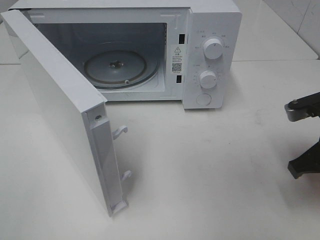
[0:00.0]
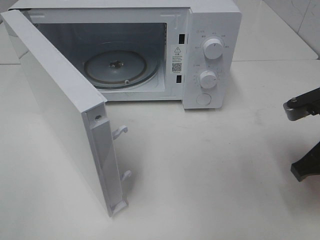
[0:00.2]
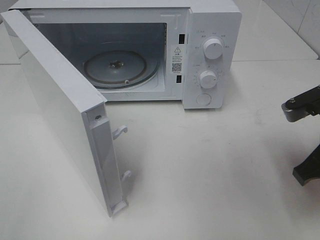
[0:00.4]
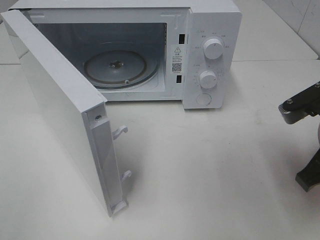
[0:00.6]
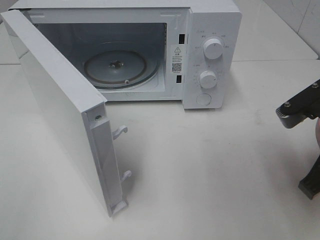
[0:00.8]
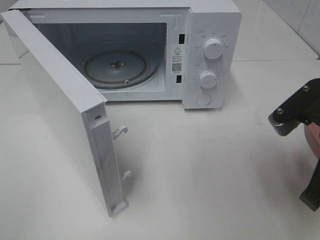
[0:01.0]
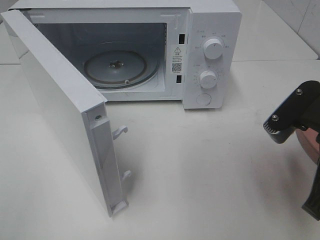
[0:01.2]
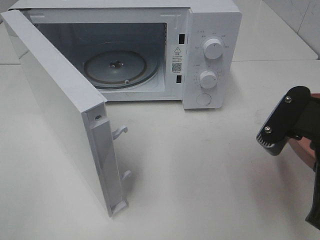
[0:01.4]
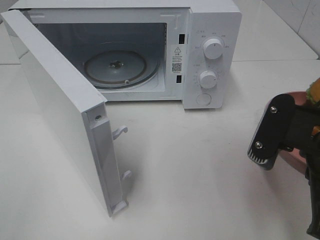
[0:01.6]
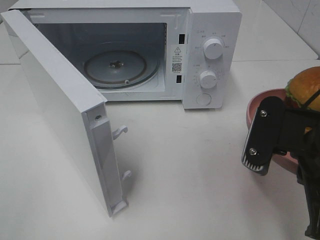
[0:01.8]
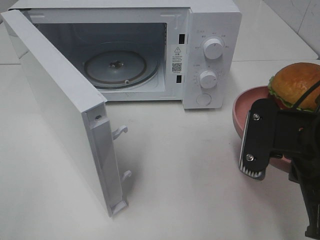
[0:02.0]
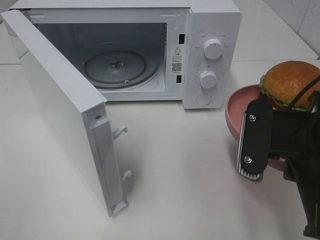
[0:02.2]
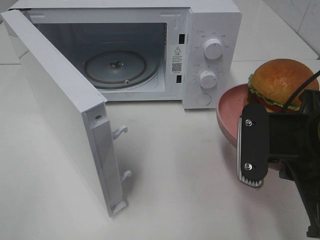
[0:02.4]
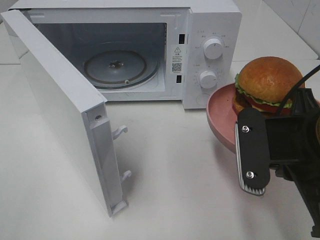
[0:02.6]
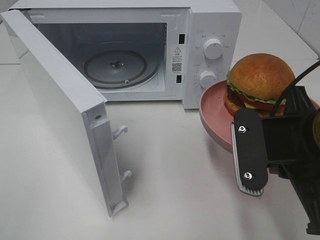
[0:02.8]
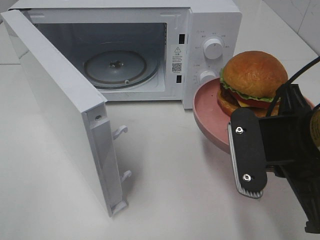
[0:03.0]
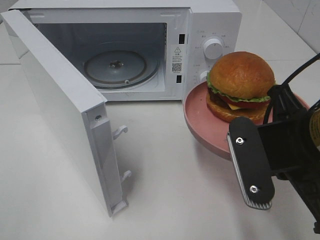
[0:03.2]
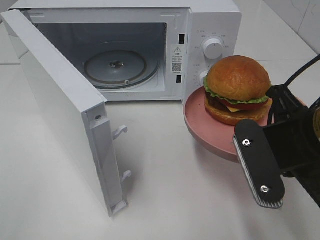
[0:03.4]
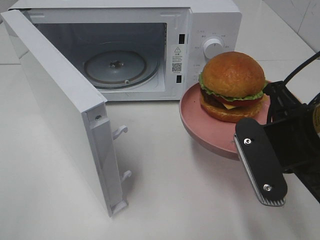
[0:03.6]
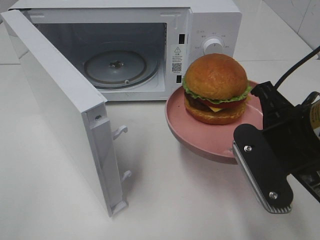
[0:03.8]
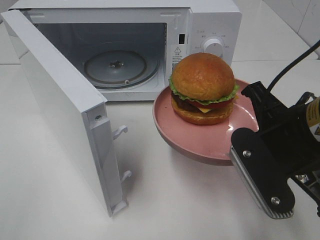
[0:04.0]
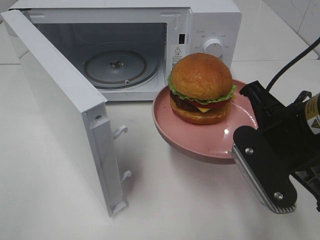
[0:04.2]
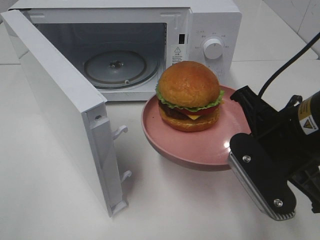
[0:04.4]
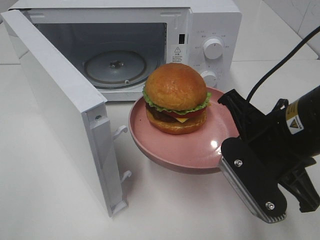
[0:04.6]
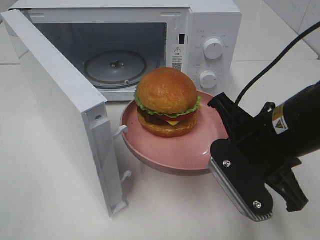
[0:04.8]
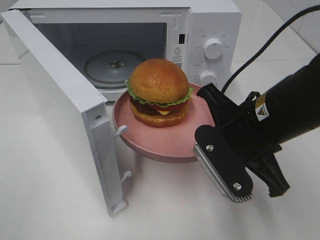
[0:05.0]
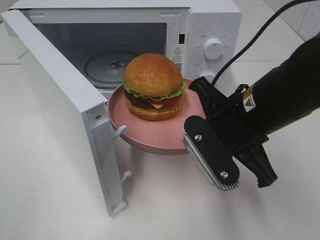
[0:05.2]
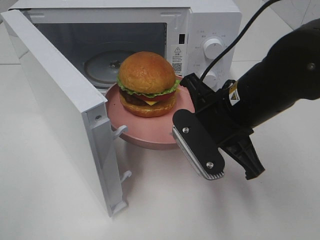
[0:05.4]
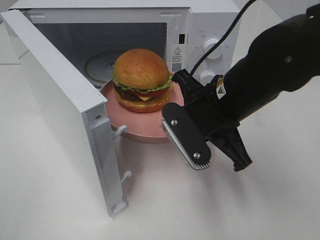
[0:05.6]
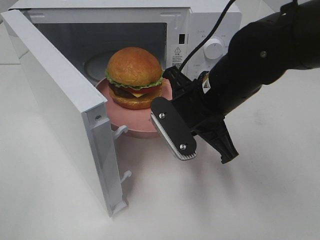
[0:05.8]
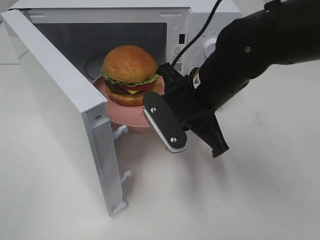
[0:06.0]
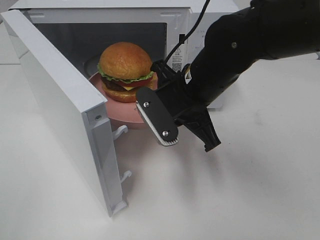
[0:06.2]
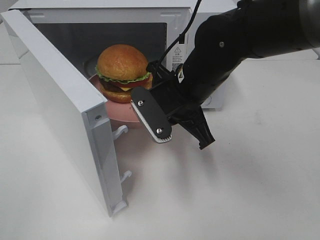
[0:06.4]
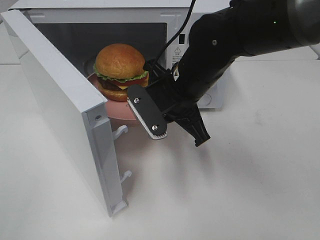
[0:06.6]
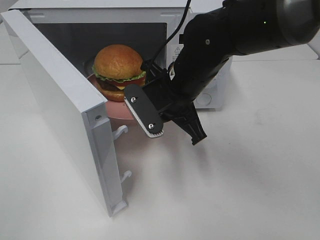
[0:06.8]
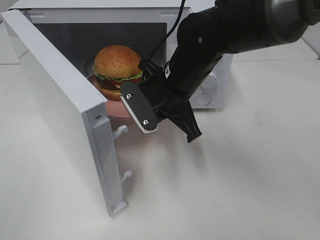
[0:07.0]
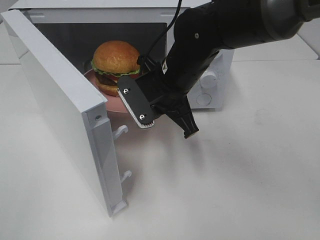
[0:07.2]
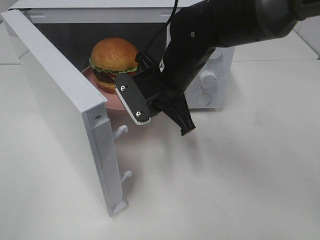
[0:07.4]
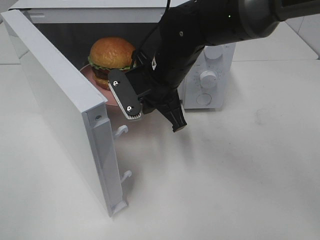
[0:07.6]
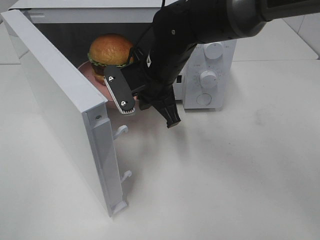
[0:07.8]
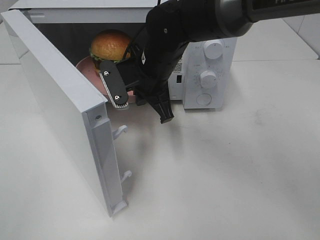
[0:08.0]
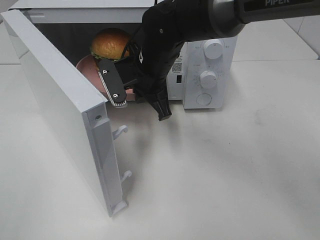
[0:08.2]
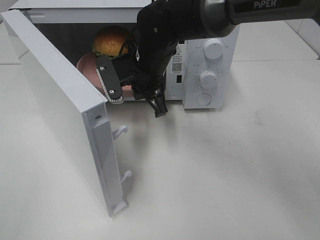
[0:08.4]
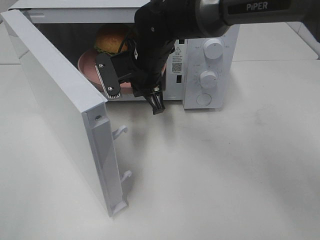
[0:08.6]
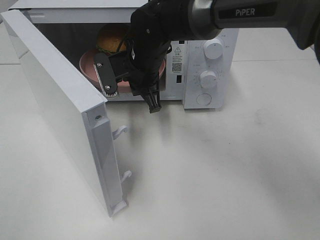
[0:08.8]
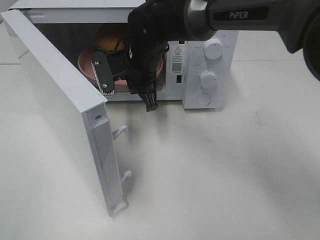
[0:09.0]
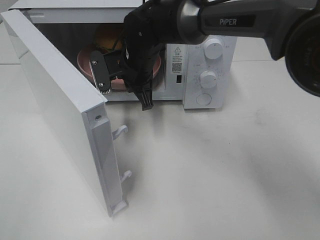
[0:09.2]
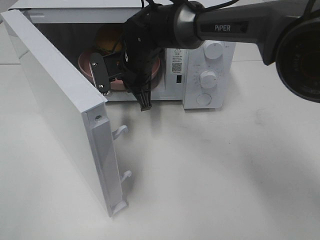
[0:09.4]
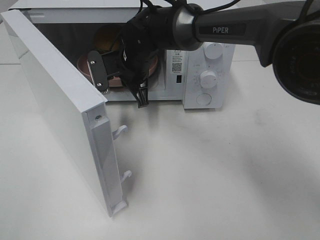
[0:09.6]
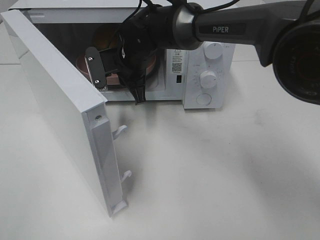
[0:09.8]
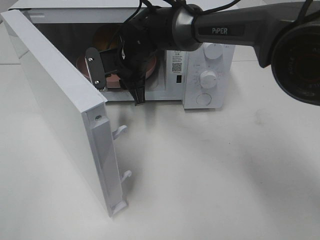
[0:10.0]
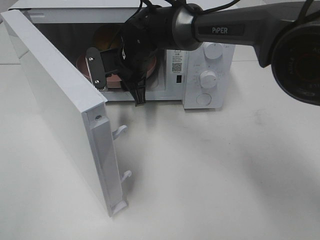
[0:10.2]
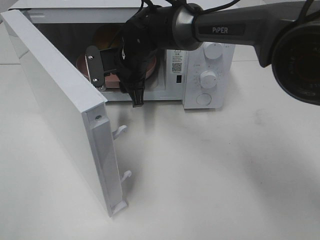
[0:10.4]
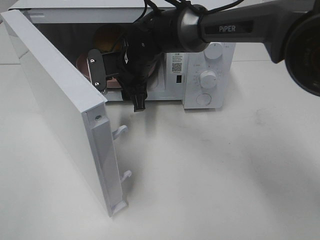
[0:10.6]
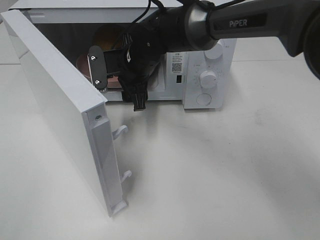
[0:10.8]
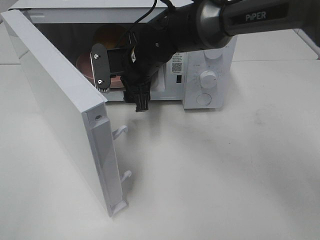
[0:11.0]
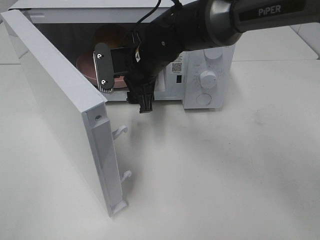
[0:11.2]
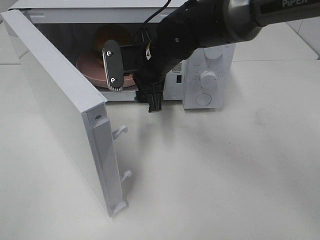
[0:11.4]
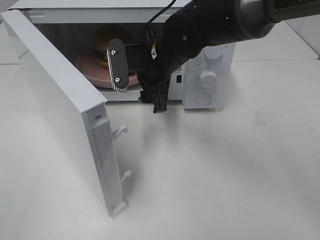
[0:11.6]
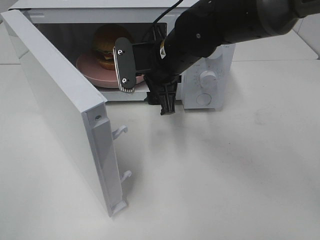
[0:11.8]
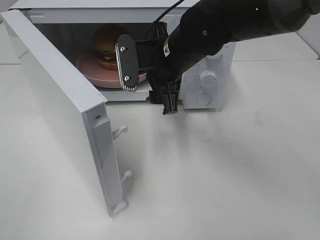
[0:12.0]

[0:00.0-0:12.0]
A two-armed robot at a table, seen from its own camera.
Task of the whole recording: Heat the burger.
Step, 0:00.0 to 0:10.0: Right hand: place the plate in the microwave.
0:00.0 to 0:01.6: The right gripper goes approximately 15 cm to the left, backward and upward.
0:04.4 to 0:06.0: The right gripper shifts about 15 cm forward and to the left.
0:06.0 to 0:07.6: The right gripper shifts some 10 cm forward and to the left.
0:07.6 to 0:09.0: The right gripper heads forward, covering approximately 5 cm.
0:09.0 to 0:10.4: The right gripper opens up.
0:10.4 to 0:12.0: The right gripper shifts some 10 cm backward, to the right and upward.

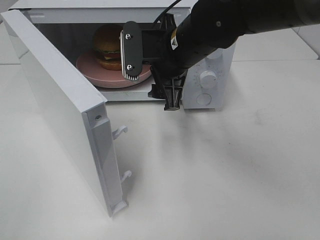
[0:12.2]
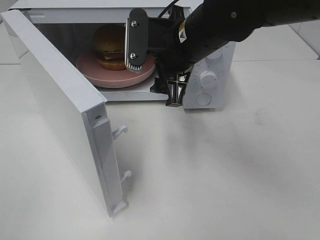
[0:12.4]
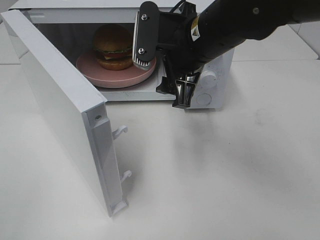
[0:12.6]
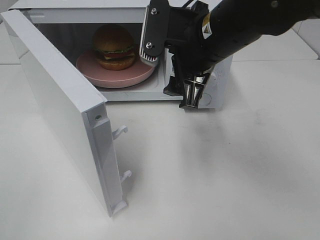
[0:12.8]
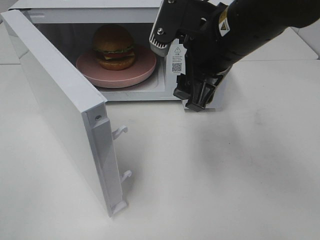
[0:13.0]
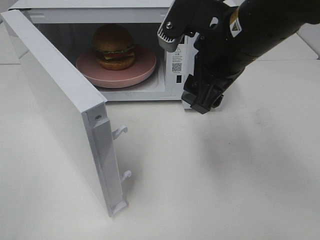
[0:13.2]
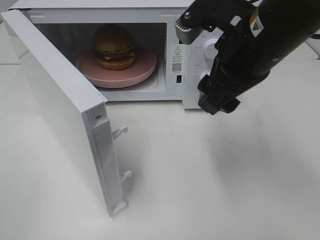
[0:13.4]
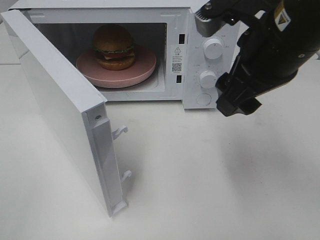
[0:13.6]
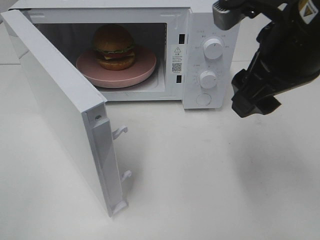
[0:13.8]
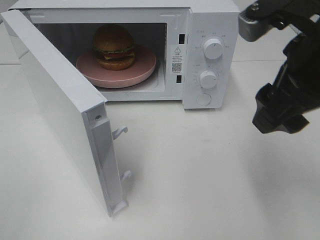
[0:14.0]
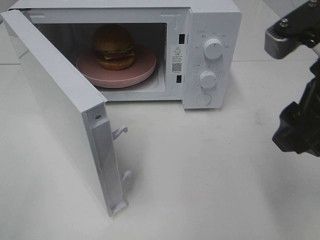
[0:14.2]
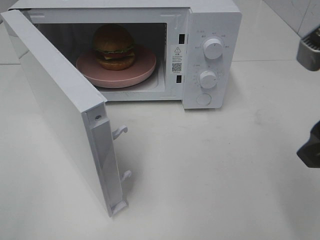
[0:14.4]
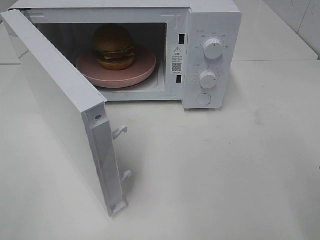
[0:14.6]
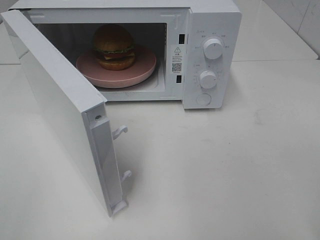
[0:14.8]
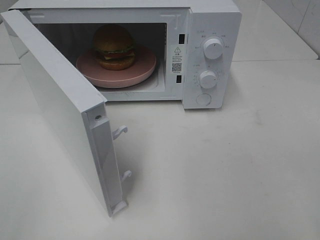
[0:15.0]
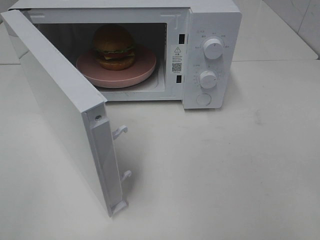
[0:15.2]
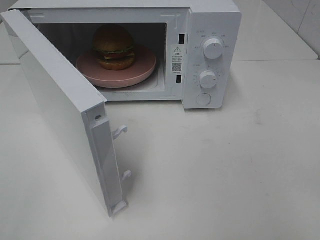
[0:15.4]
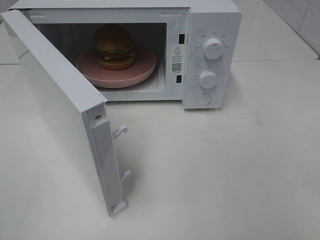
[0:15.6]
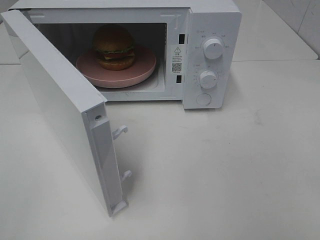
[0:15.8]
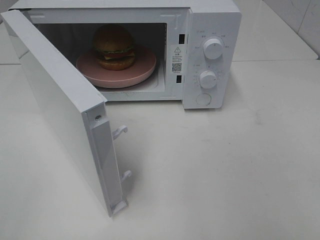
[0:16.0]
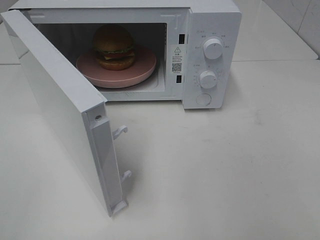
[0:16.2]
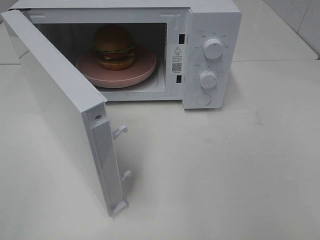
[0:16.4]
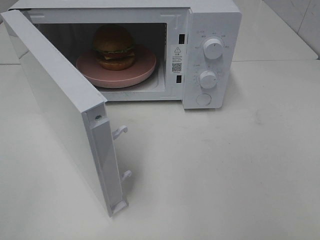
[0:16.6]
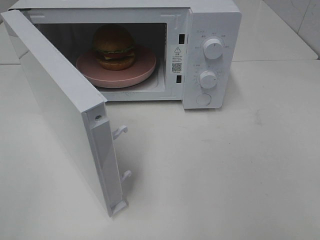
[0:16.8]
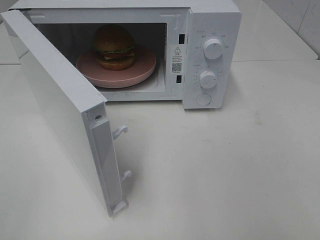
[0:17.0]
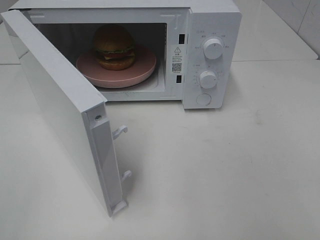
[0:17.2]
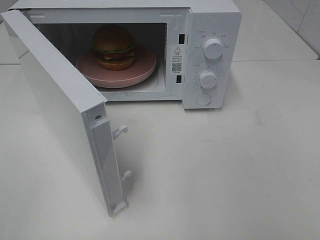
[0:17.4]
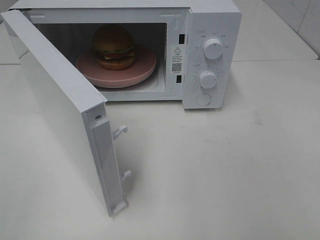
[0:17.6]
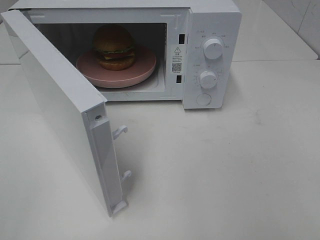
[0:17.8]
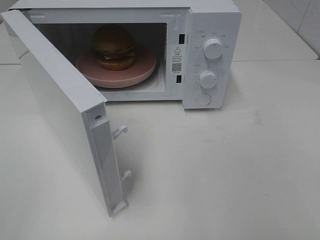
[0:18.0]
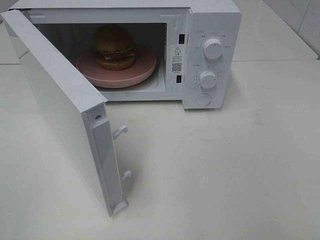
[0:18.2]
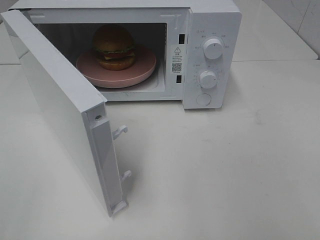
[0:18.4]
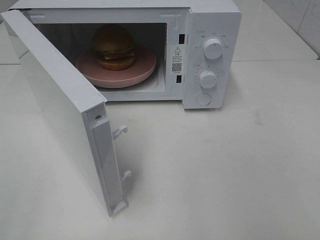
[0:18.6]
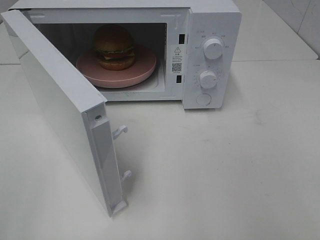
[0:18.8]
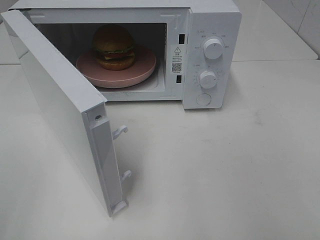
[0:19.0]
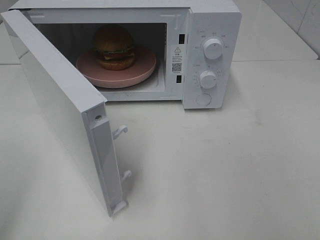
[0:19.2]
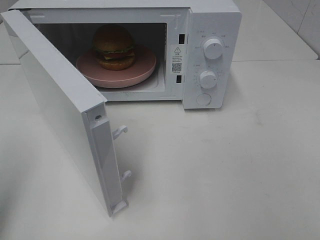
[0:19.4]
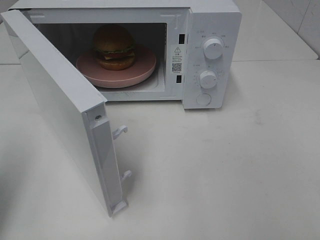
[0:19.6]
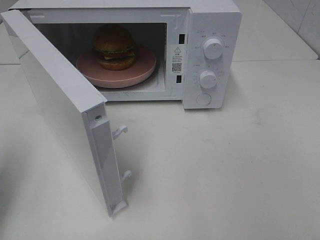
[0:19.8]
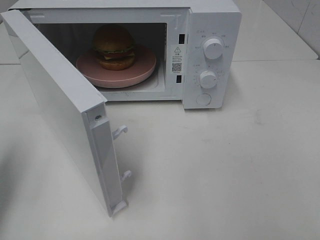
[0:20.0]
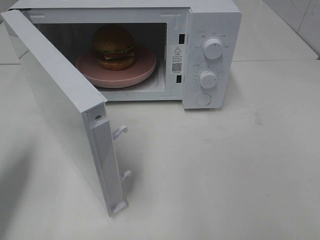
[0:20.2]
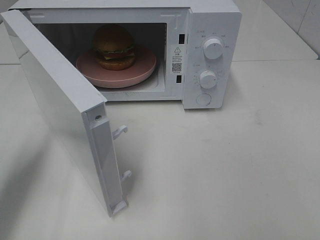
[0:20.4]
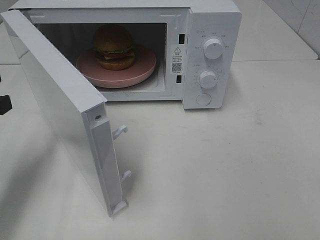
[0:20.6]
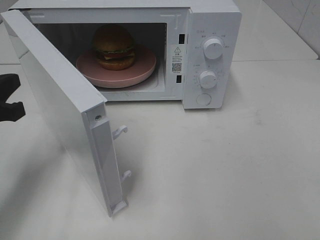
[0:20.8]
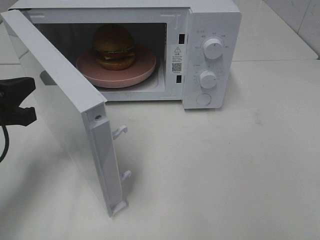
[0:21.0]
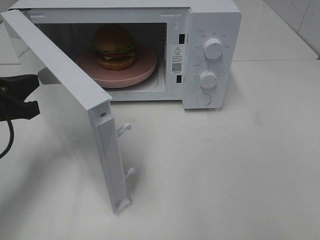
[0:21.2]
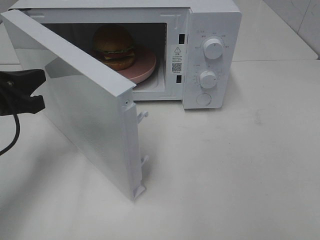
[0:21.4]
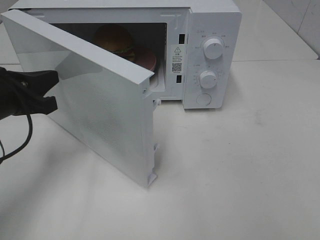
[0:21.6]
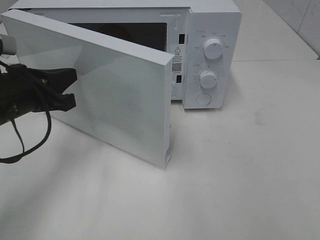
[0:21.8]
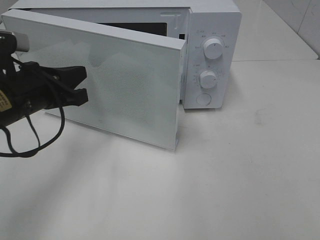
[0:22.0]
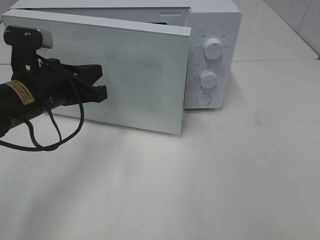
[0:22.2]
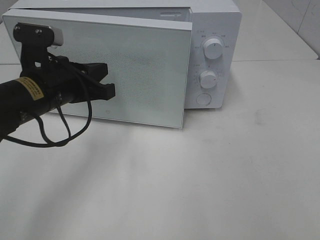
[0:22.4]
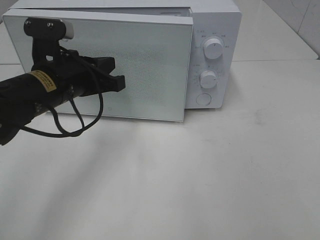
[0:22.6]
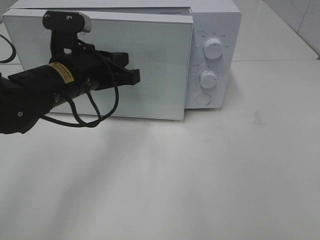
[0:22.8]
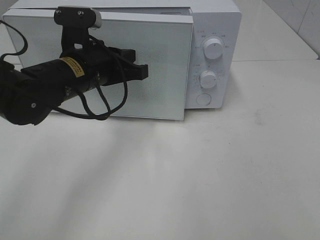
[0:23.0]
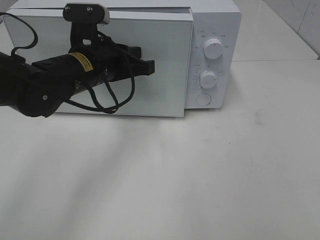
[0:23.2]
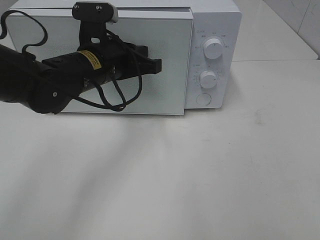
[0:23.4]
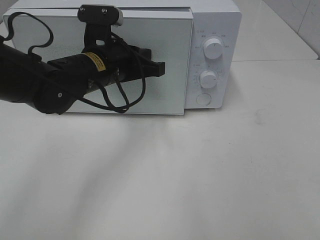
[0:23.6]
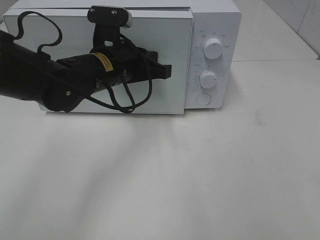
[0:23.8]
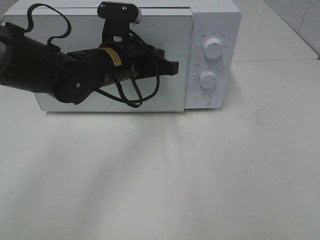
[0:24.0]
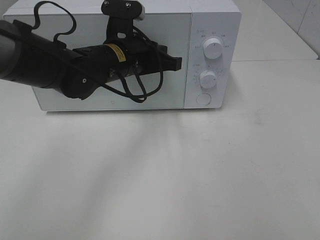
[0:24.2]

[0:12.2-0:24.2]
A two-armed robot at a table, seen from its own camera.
Task of the whole recording: Heat the burger.
0:12.2 to 0:13.8: The right gripper is displaced backward, to the right and upward by roughly 15 cm.
0:13.8 to 0:15.2: The right gripper heads backward and to the right, covering some 20 cm.
0:16.6 to 0:18.2: Both grippers stay put.
0:18.2 to 0:19.8: The left gripper goes roughly 20 cm forward, and closes.
0:19.8 to 0:21.2: The left gripper shifts roughly 15 cm downward, to the right and forward.
0:21.2 to 0:22.6: The left gripper moves to the right and forward, some 15 cm.
0:22.6 to 0:24.2: The left gripper travels to the right and forward by roughly 10 cm.
